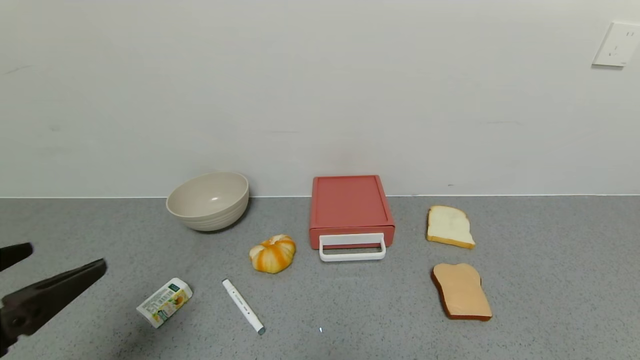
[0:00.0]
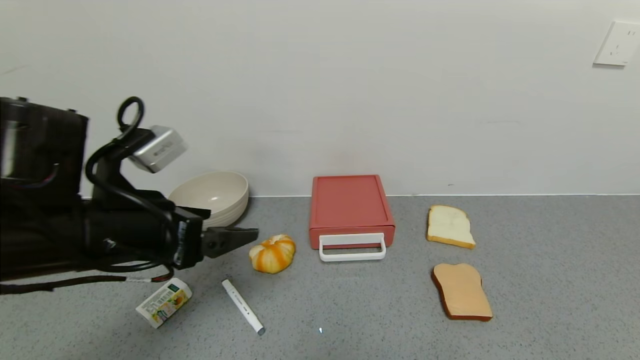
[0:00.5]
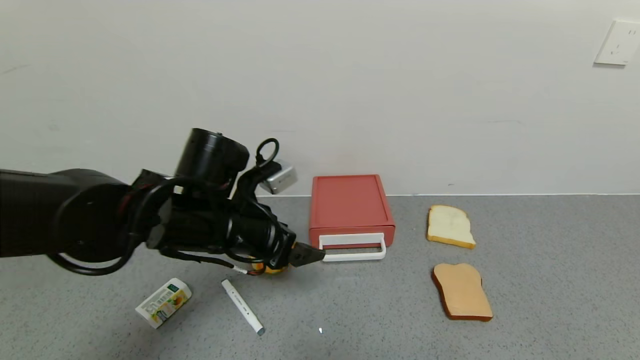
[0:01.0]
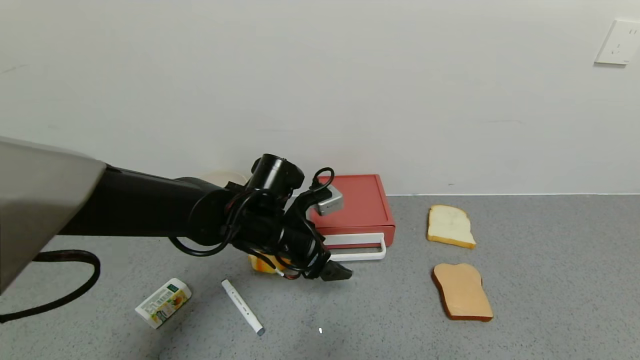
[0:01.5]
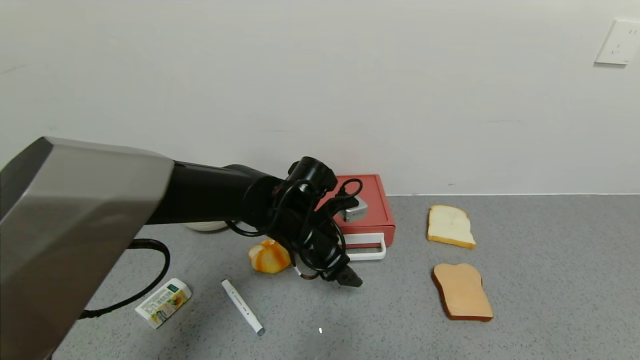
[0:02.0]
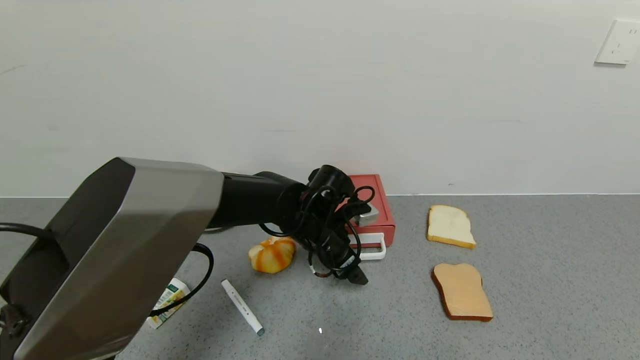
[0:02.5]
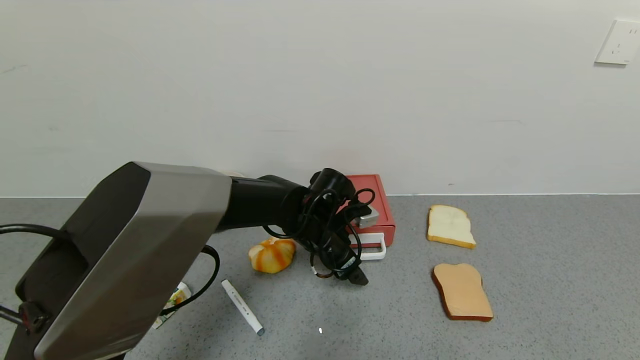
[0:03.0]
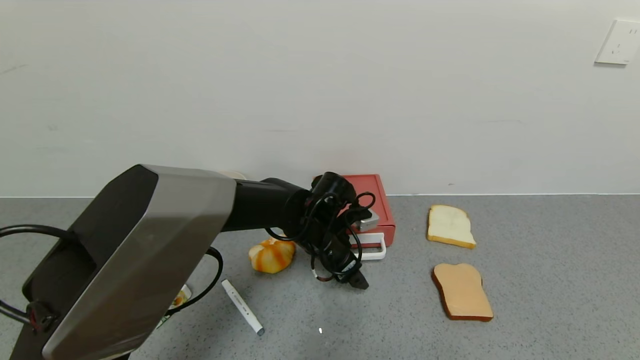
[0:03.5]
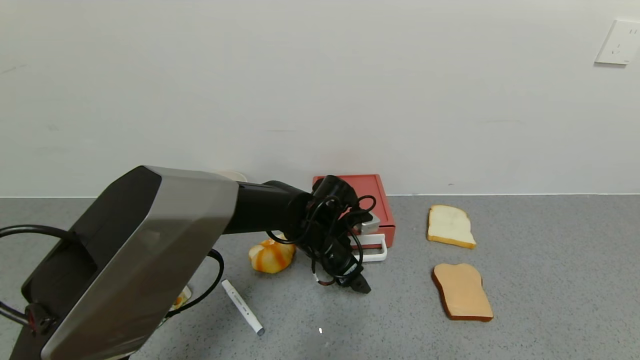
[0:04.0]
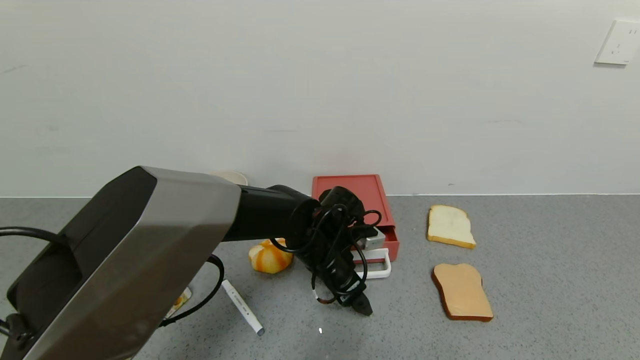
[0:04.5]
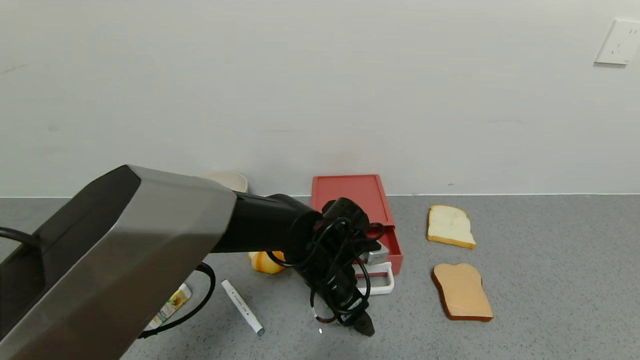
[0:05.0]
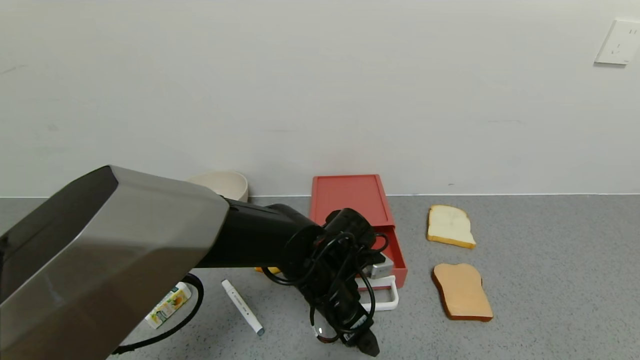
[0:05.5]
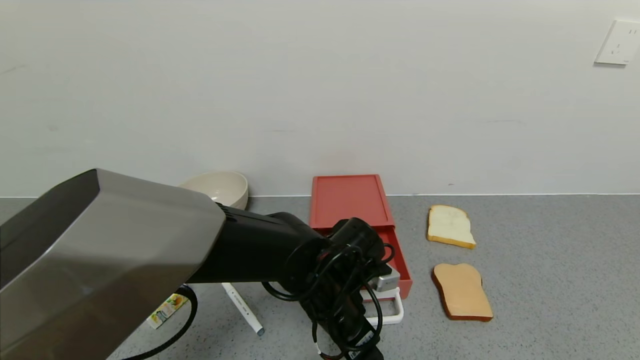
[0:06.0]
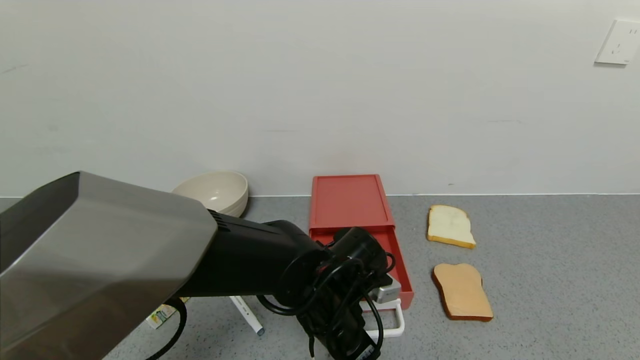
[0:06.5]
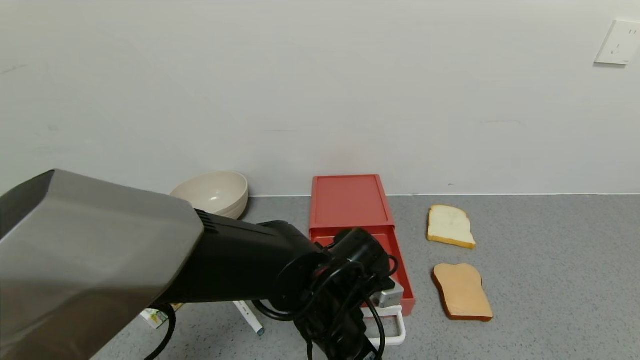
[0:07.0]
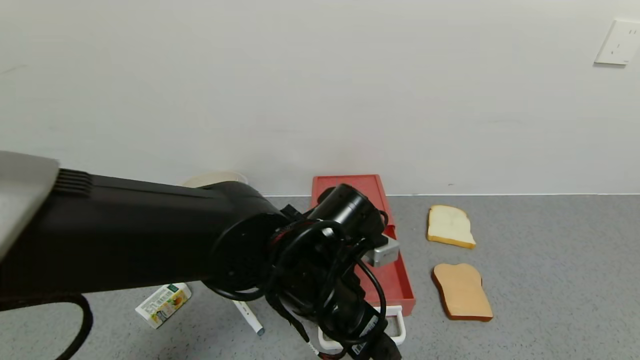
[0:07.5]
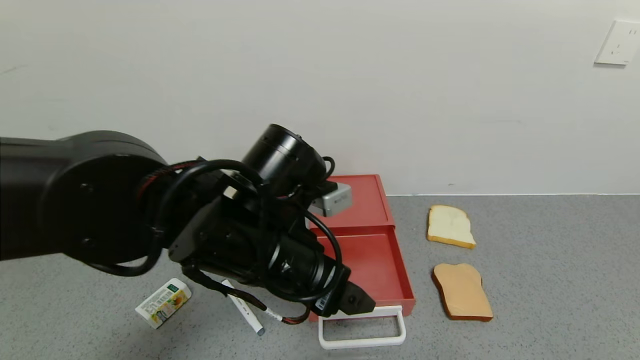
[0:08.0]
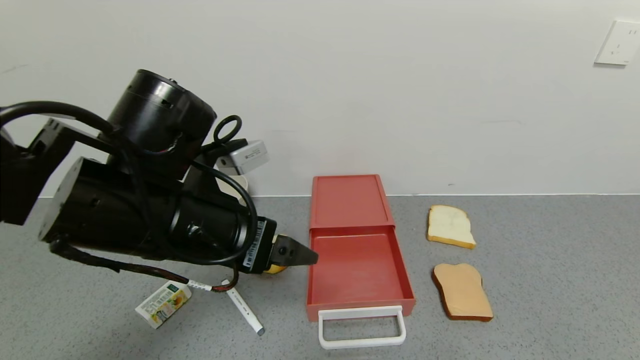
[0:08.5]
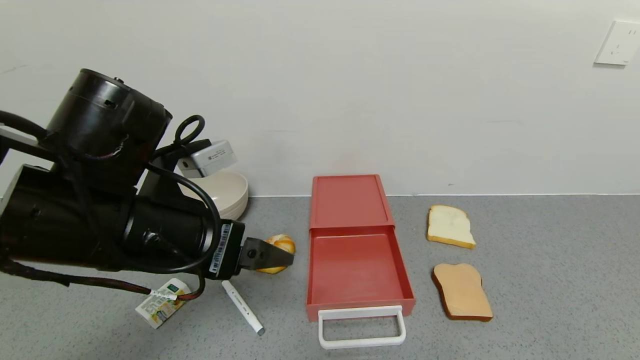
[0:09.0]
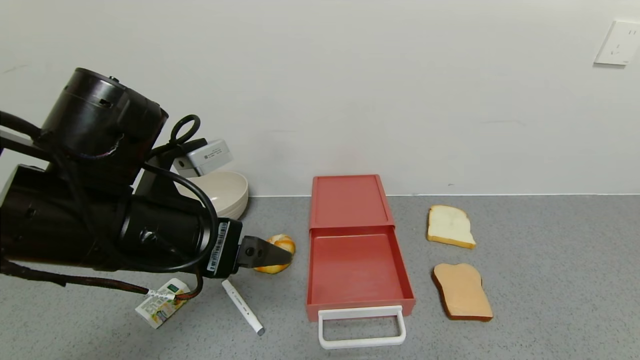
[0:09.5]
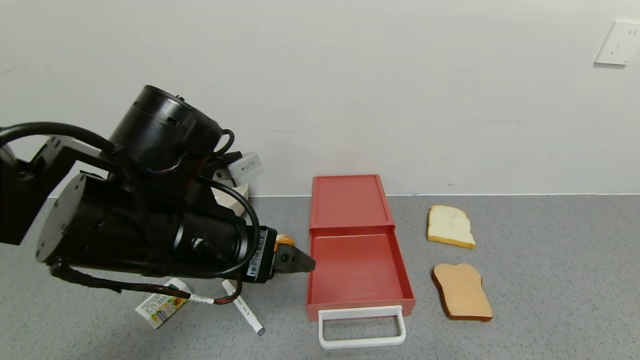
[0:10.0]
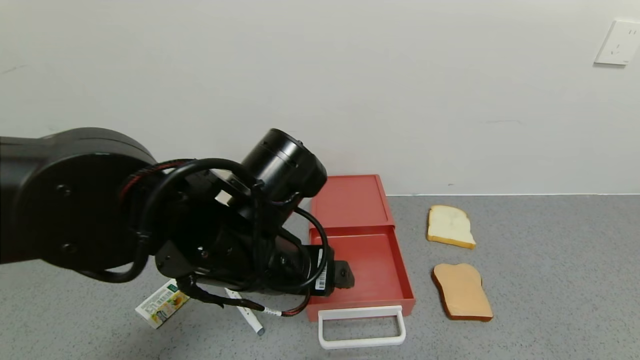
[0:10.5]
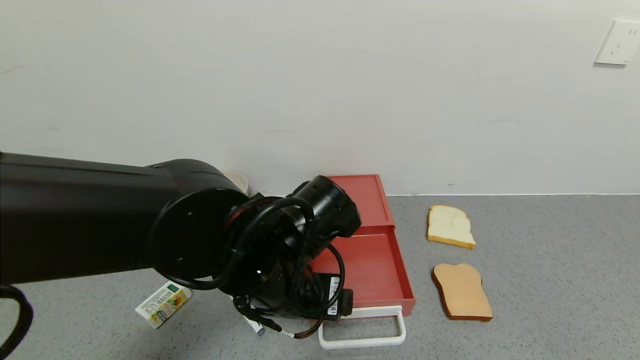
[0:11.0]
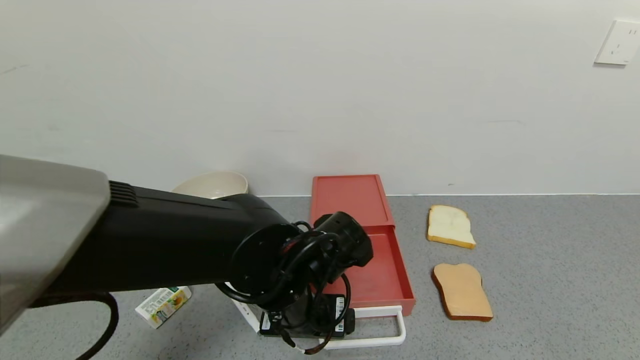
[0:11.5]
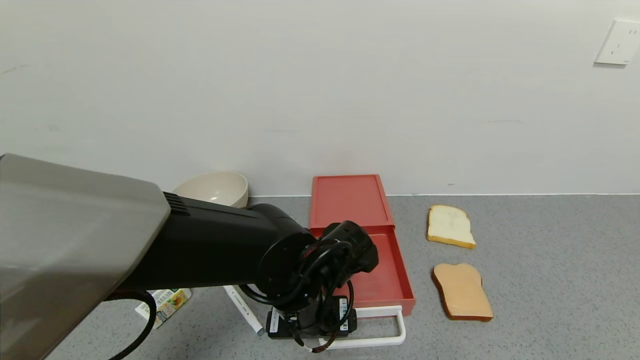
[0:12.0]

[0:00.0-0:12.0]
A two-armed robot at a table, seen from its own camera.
Task of the whole recording: use the gripper to open the drawer and close the red drawer.
Step, 0:00.0 to 0:07.0: Open the red drawer with left gripper.
0:00.0 to 0:02.0: The left gripper is displaced forward, to the right and downward by approximately 35 cm.
0:02.0 to 0:04.0: The left gripper ends up approximately 5 cm from where it was.
0:04.0 to 0:06.0: The left gripper moves backward, some 10 cm.
0:06.0 to 0:08.0: The left gripper travels upward and to the left by about 15 cm.
0:08.0 to 0:10.0: The left gripper travels to the left by about 5 cm.
0:10.0 to 0:12.0: The left gripper heads downward and to the right, covering about 15 cm.

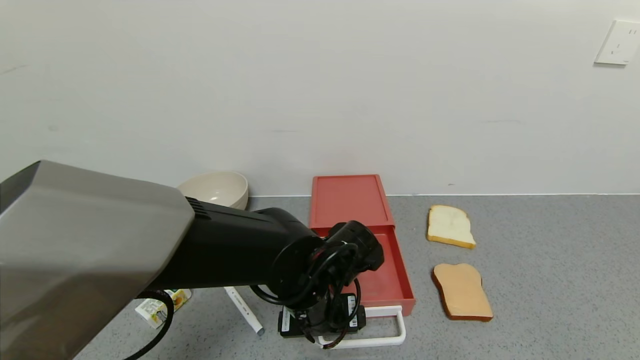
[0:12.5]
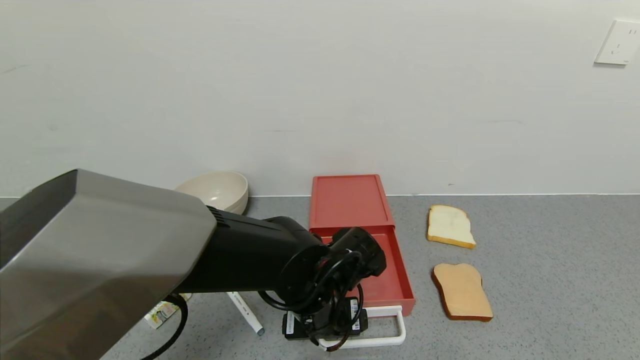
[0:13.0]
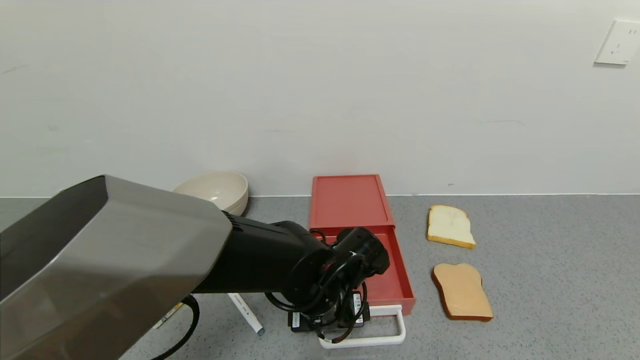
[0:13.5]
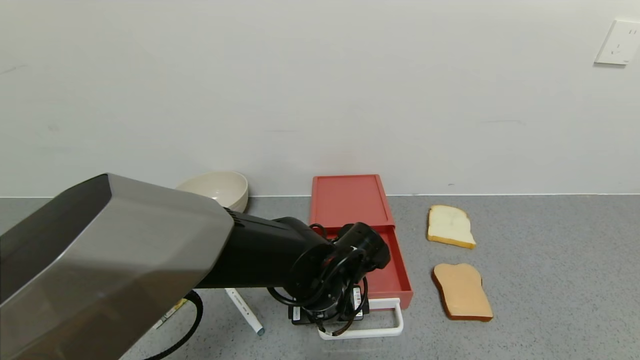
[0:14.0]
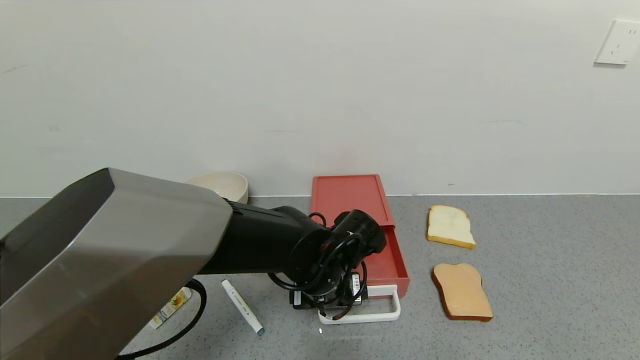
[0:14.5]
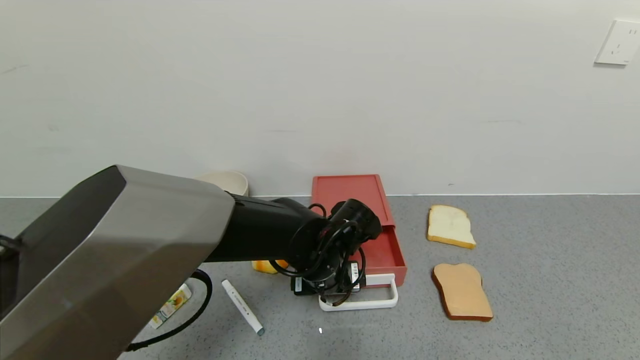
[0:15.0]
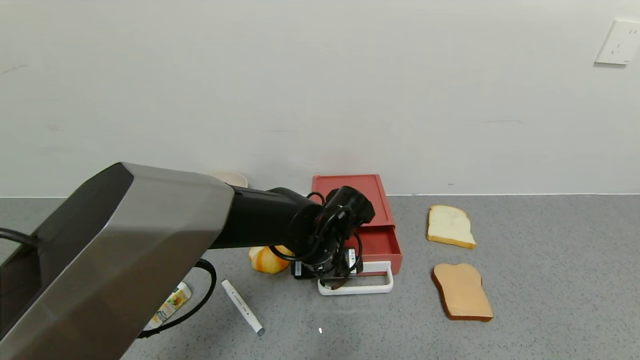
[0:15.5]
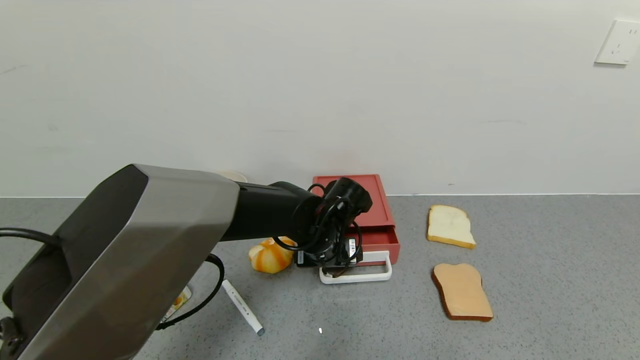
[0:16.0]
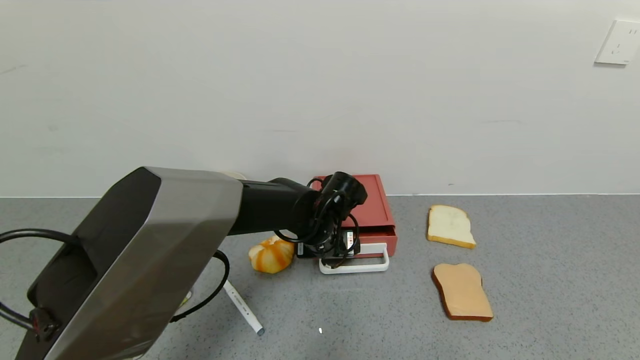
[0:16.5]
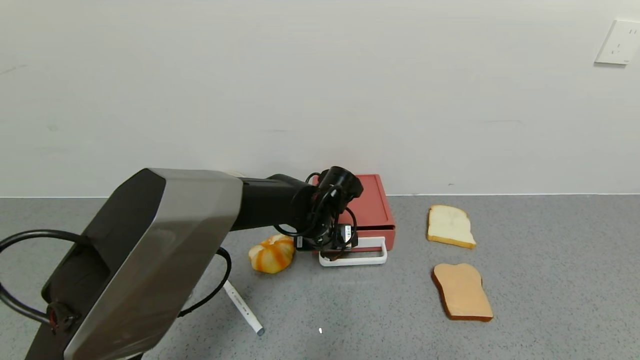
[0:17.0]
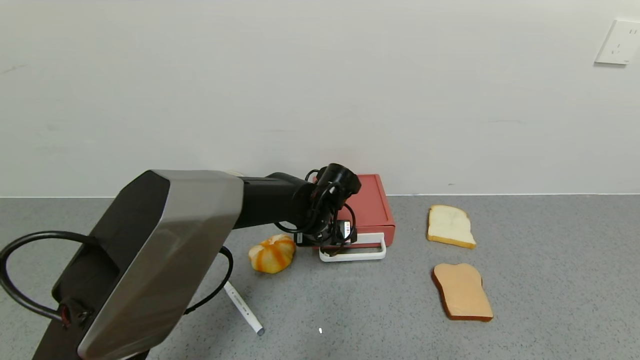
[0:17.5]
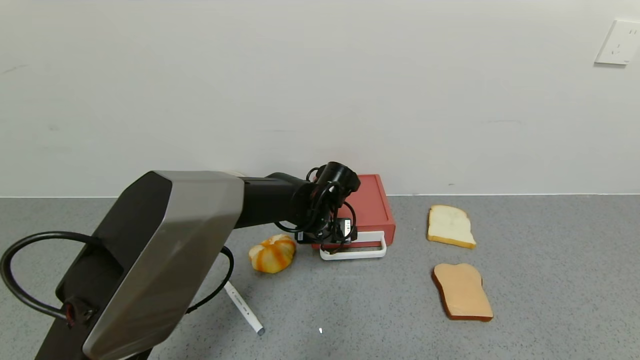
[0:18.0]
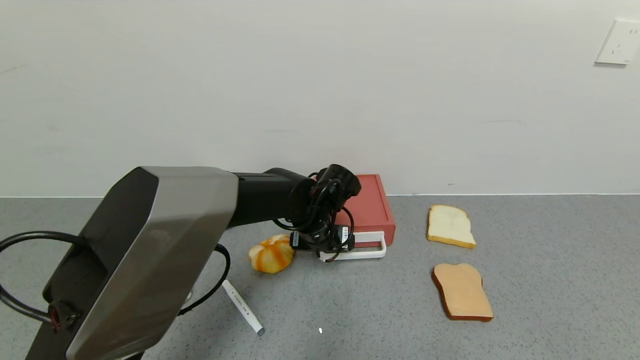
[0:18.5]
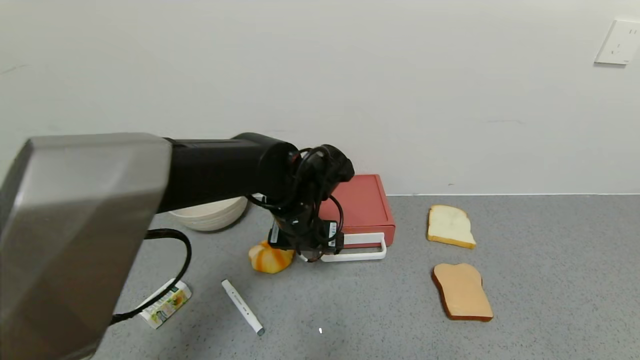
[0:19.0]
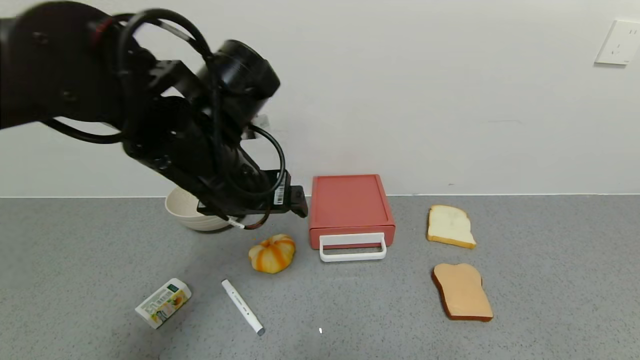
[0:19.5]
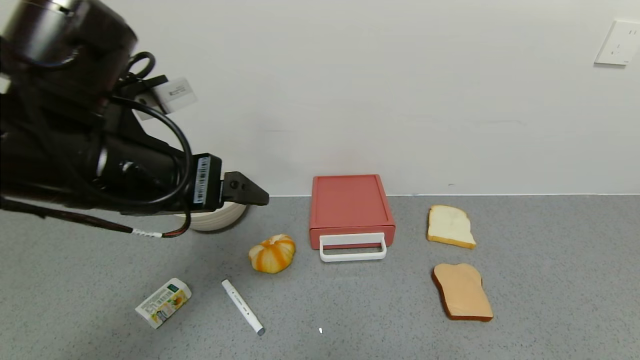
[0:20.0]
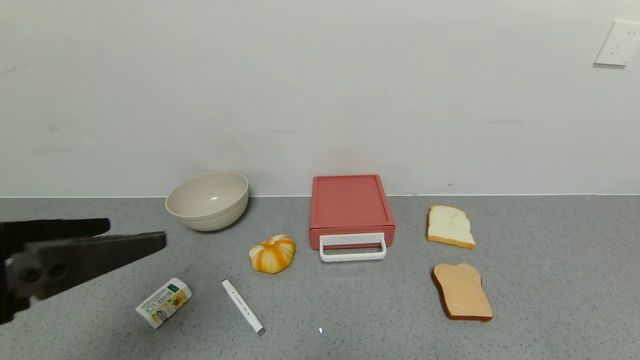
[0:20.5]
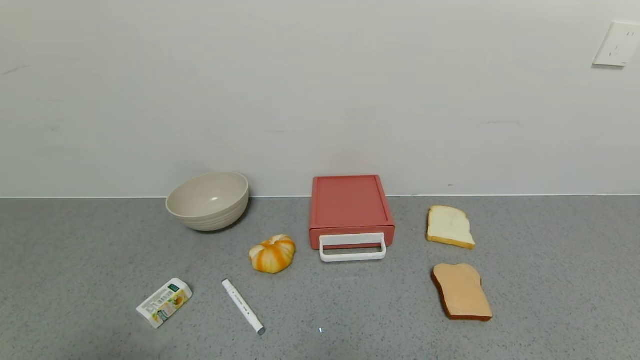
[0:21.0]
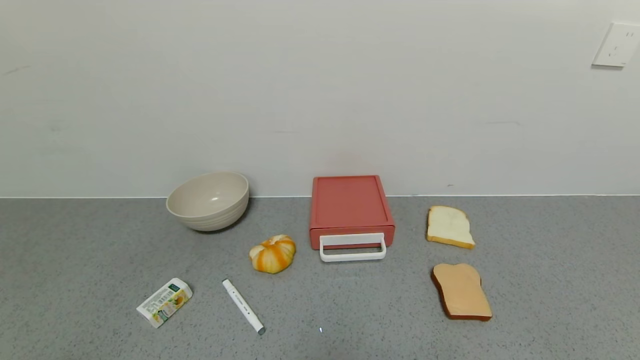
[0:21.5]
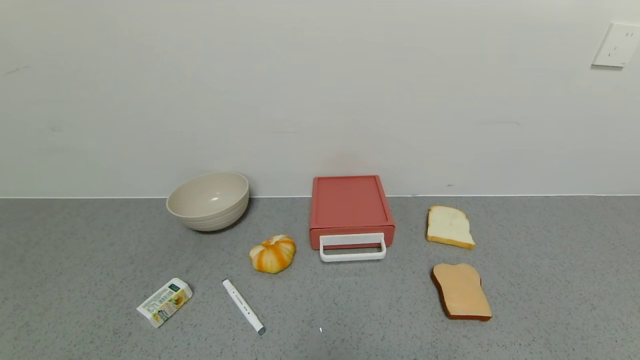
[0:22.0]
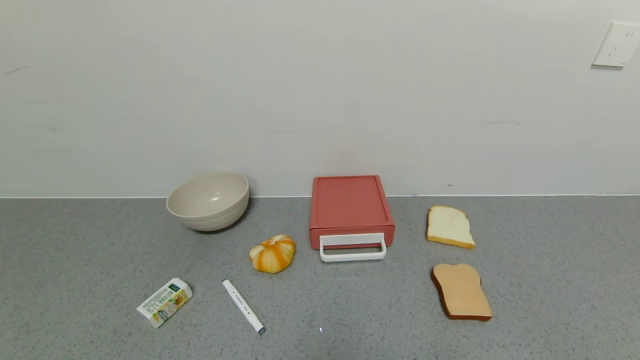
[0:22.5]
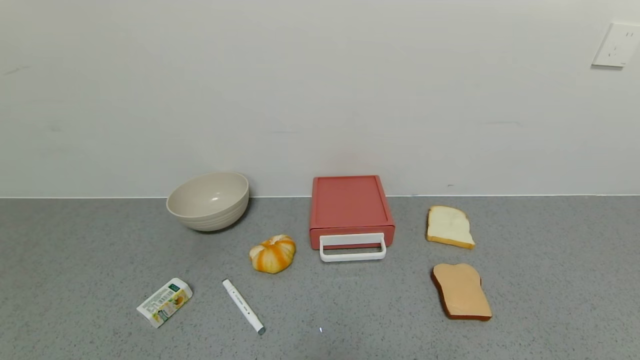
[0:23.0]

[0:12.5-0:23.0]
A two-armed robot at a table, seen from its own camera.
Task of the whole recording: use the gripper to open the drawer and close the red drawer.
Step, 0:12.5 to 0:18.5: Close the red drawer with left gripper.
0:12.5 to 0:14.5: There are only small adjustments of the grippers.
0:14.5 to 0:16.5: The left gripper goes about 10 cm forward.
0:16.5 to 0:19.0: The left gripper heads upward, covering some 5 cm.
0:19.0 to 0:21.0: The left gripper is displaced backward and to the left by roughly 40 cm.
